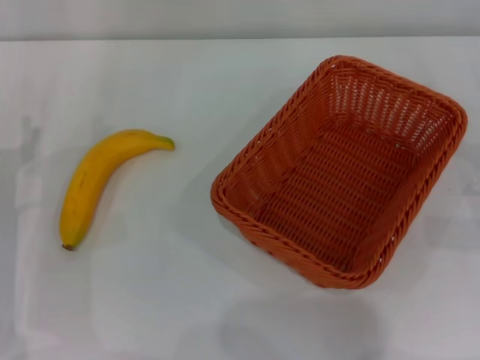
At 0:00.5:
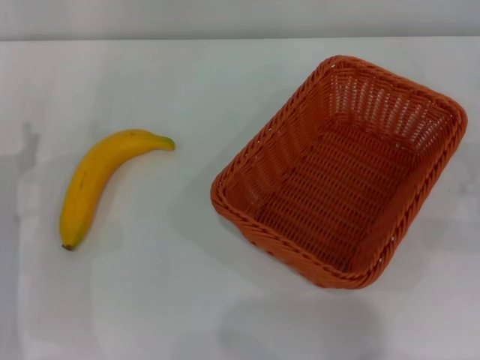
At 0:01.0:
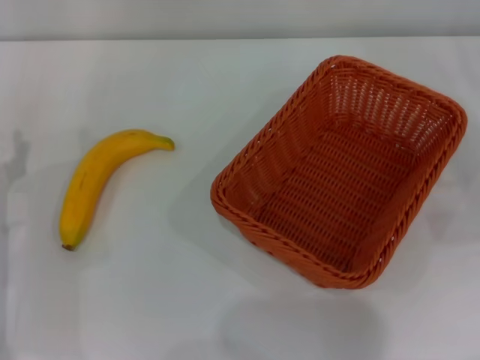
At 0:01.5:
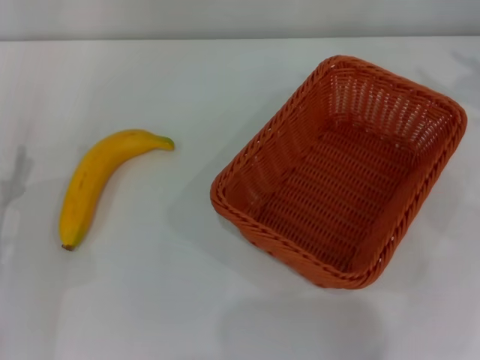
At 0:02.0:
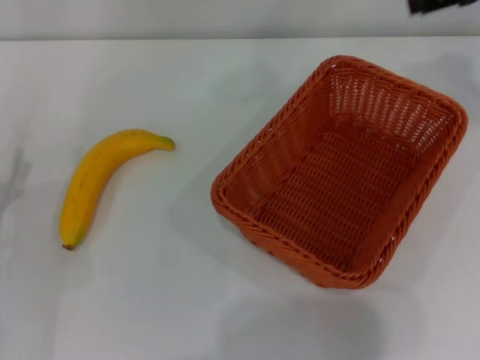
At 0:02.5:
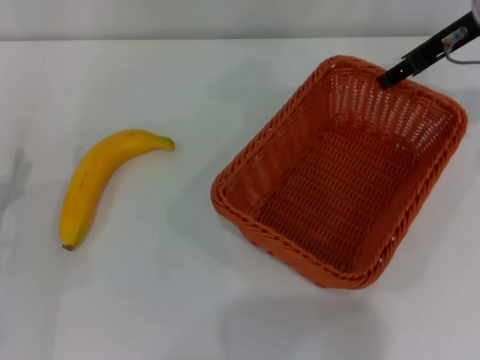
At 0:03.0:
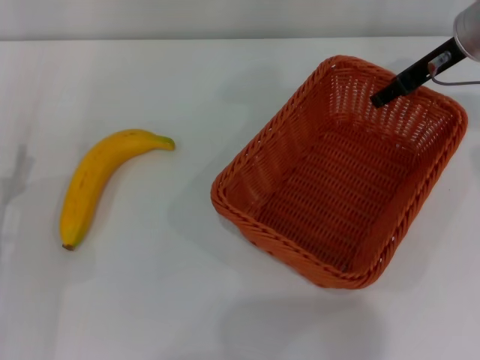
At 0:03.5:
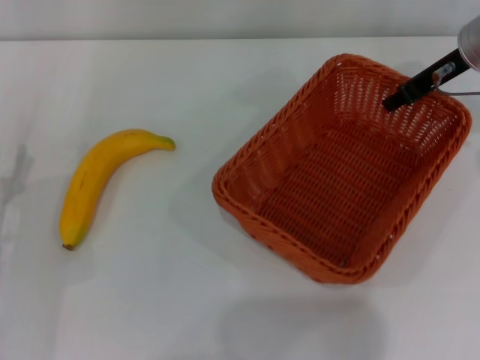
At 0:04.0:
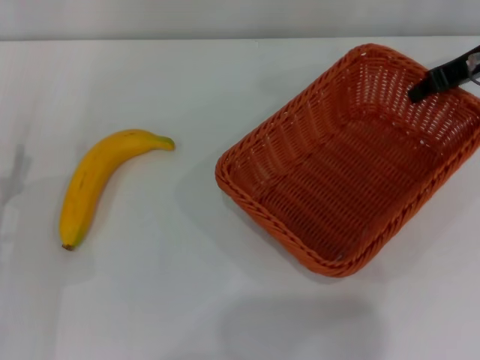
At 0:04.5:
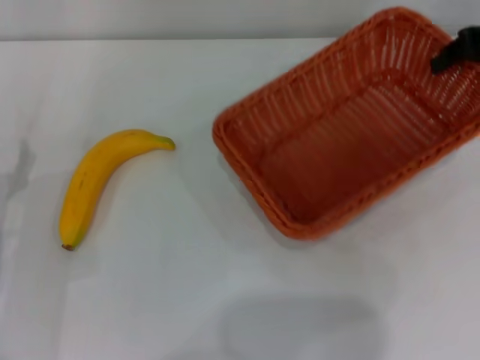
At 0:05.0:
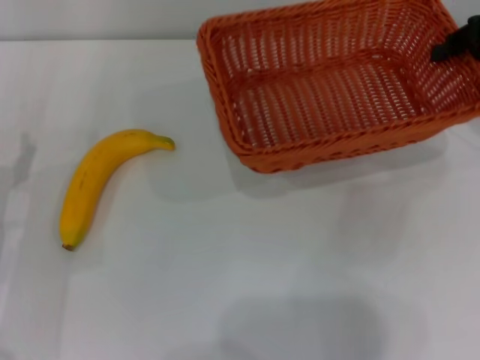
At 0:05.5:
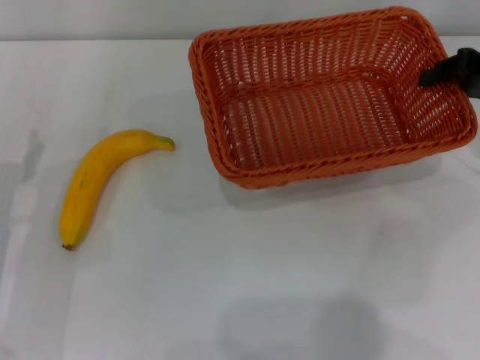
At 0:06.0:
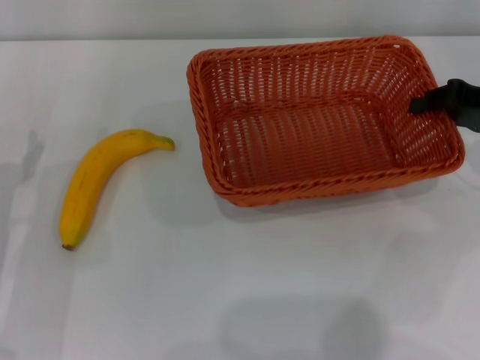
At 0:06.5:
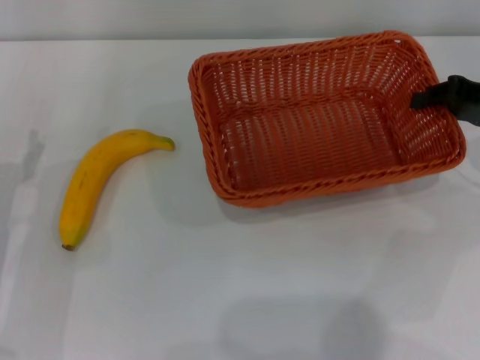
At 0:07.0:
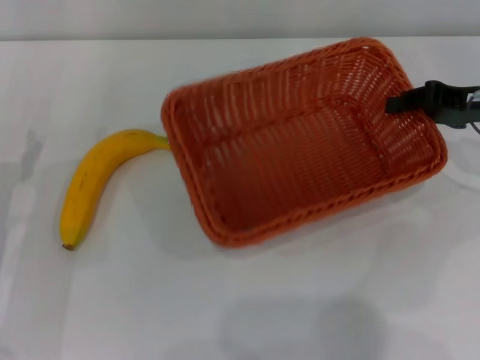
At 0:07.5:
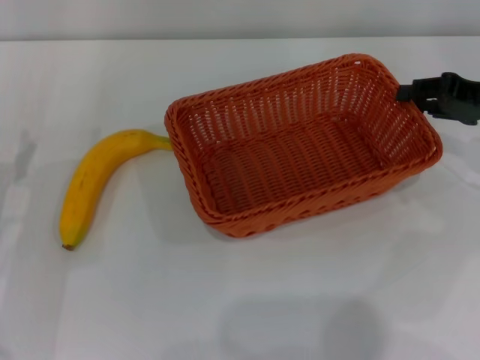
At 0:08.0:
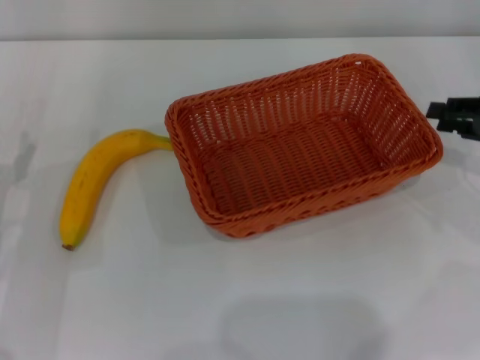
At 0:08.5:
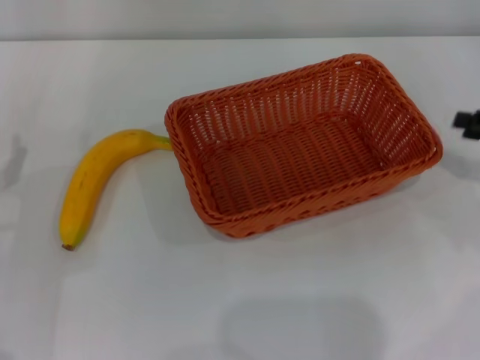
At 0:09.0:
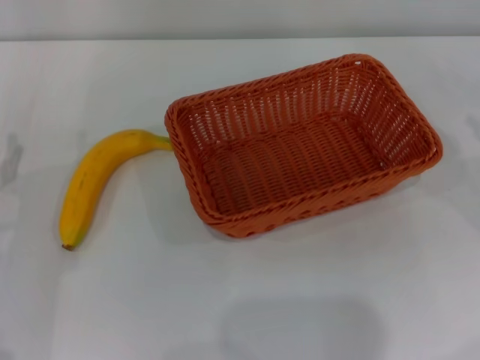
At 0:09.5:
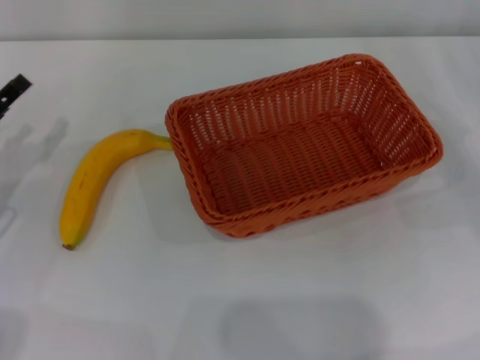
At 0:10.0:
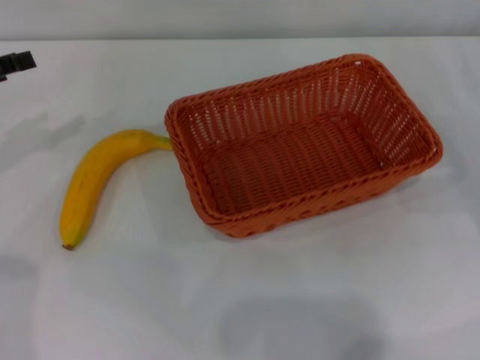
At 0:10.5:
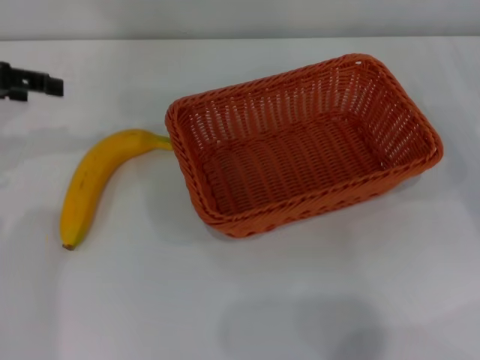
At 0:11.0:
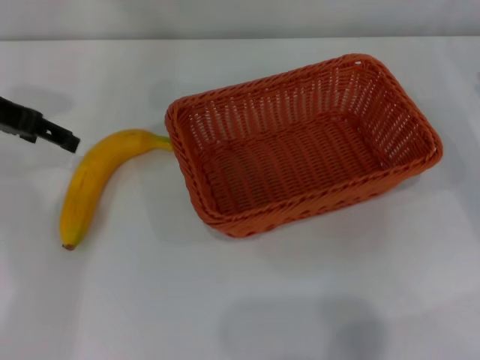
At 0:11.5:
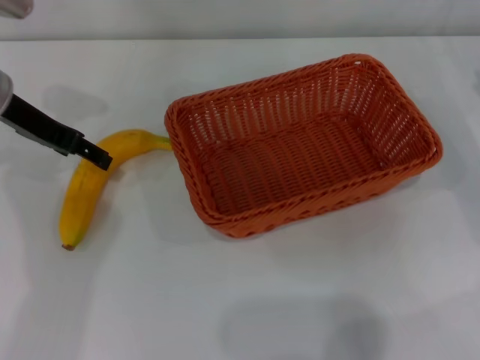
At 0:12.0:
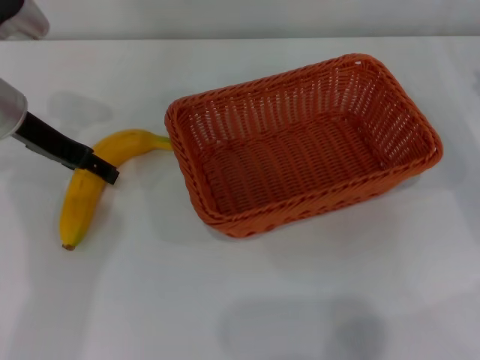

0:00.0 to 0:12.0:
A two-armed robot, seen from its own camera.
Step, 0:00.0 to 0:04.0: Pick up the light basket with the right gripper.
Step, 0:04.5 to 0:07.5: Place the light basket in the center of view with the right gripper.
0:00.0 to 0:02.0: The right gripper heads upward, forward and to the left, covering about 30 cm.
0:02.0 to 0:04.0: The right gripper shifts about 10 cm downward, and closes up.
0:04.0 to 0:06.0: The right gripper goes some 10 cm backward and downward.
0:06.0 to 0:08.0: The grippers move only a little.
0:08.0 to 0:10.0: The right gripper moves downward, approximately 5 cm, while the left gripper moves upward, forward and to the left, about 15 cm.
0:10.0 to 0:12.0: The left gripper moves to the right and forward, about 15 cm.

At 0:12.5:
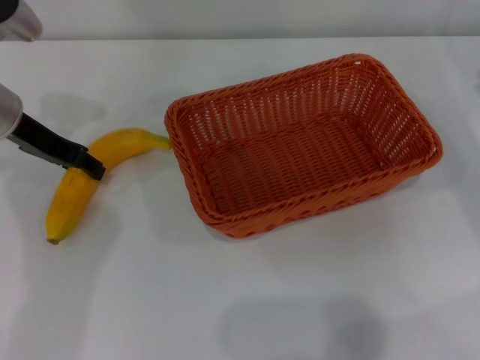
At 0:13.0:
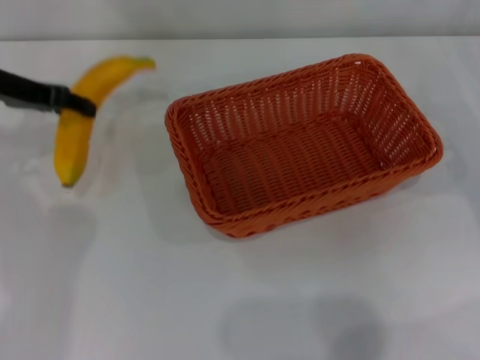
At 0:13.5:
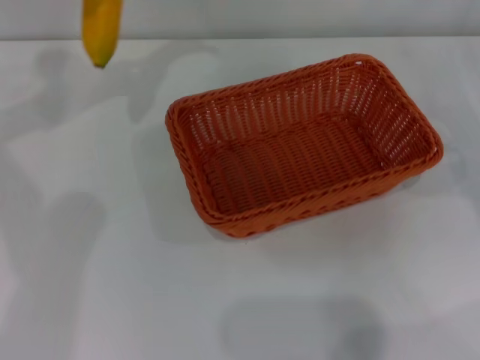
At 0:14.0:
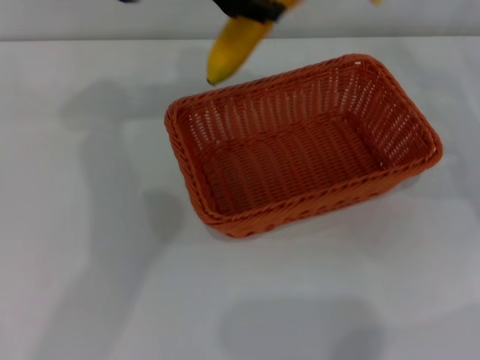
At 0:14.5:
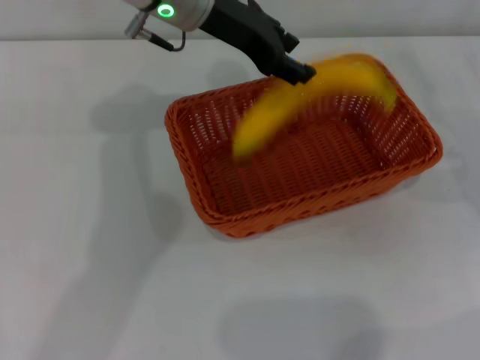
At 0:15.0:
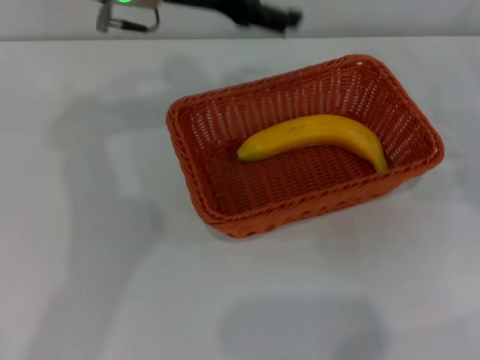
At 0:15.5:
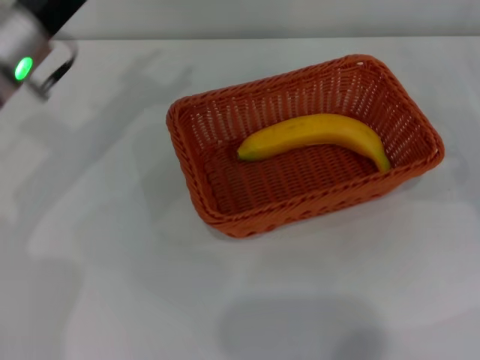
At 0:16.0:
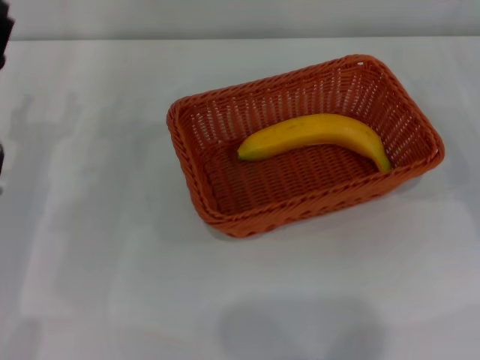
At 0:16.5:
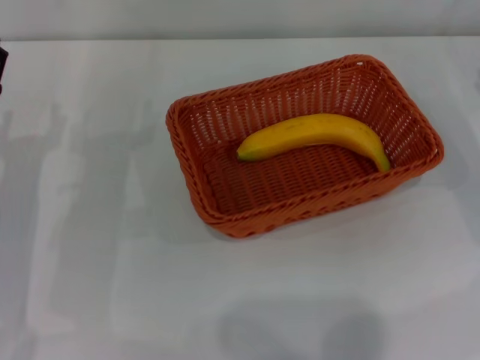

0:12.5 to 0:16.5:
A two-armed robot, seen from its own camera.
Step, 0:13.0 to 0:14.5: Place the banana into the light basket with the left gripper.
0:12.5 to 0:14.5: The left gripper shifts approximately 20 cm to the right and upward.
0:14.5 to 0:16.5: The left gripper is displaced to the left, downward and backward by about 30 cm, and opens up.

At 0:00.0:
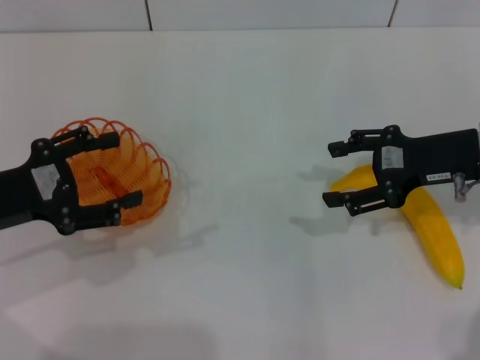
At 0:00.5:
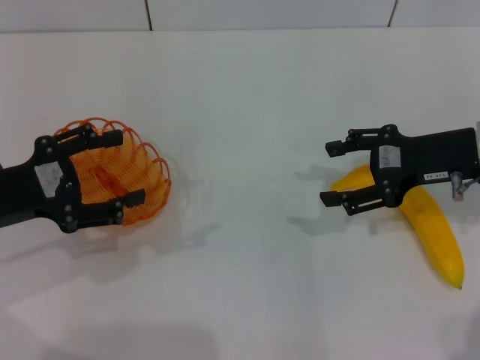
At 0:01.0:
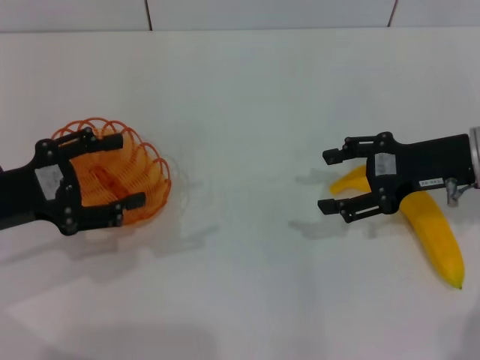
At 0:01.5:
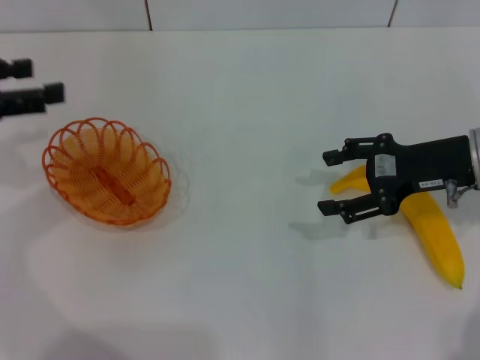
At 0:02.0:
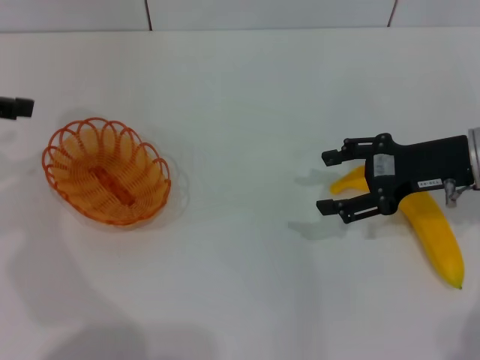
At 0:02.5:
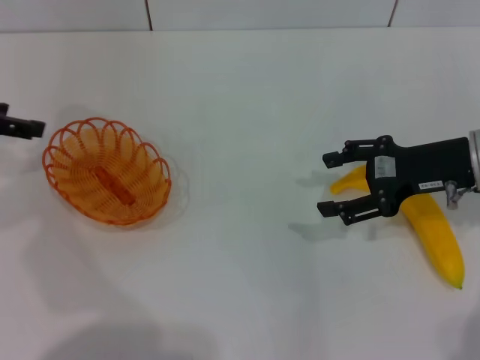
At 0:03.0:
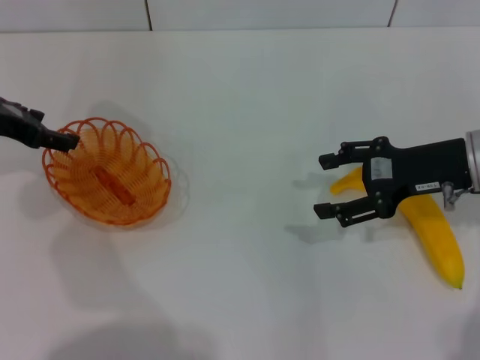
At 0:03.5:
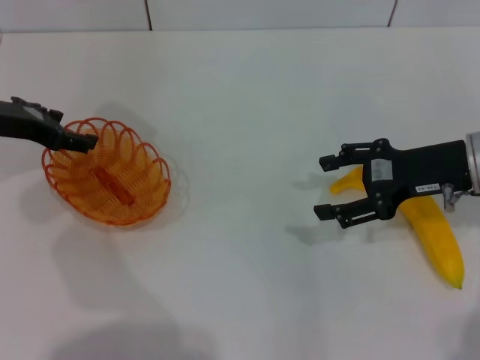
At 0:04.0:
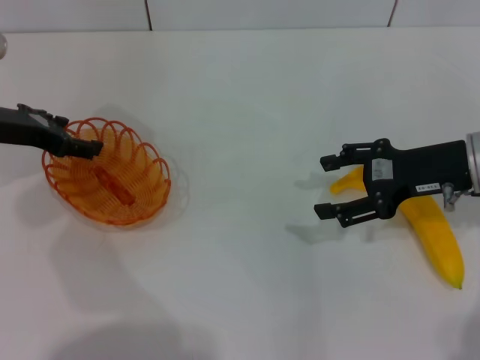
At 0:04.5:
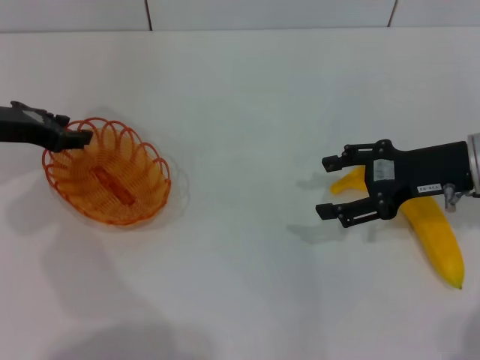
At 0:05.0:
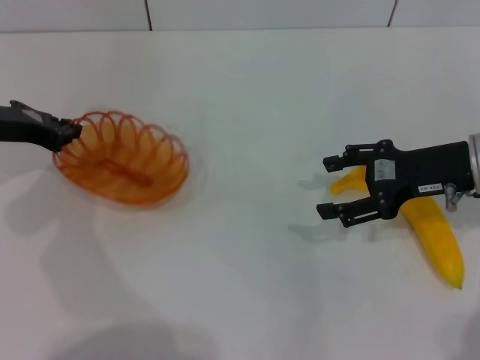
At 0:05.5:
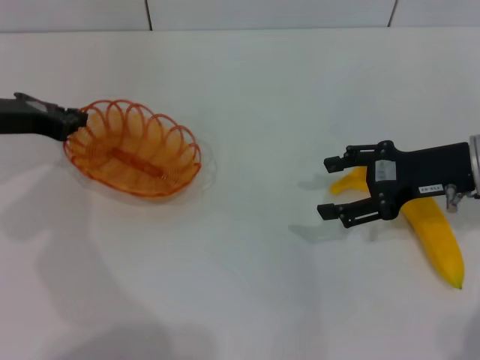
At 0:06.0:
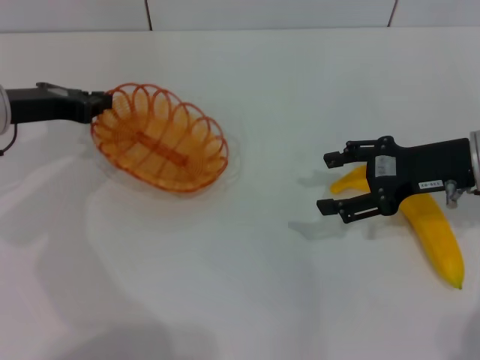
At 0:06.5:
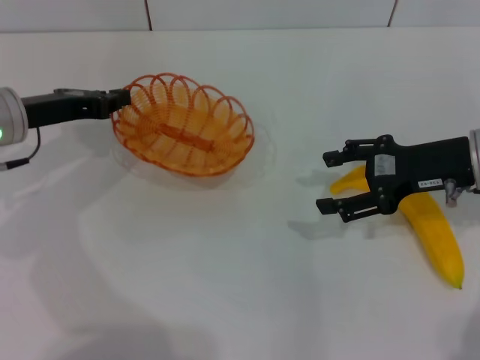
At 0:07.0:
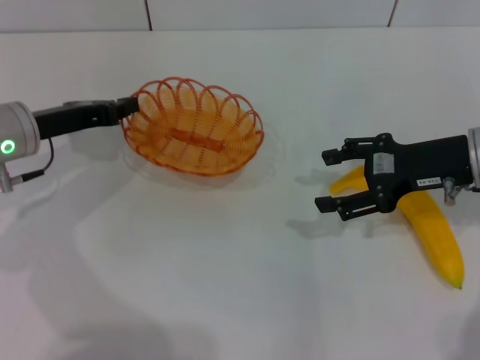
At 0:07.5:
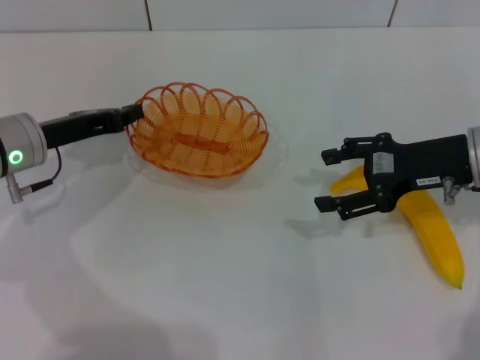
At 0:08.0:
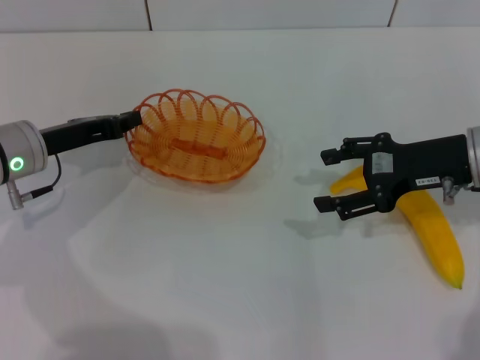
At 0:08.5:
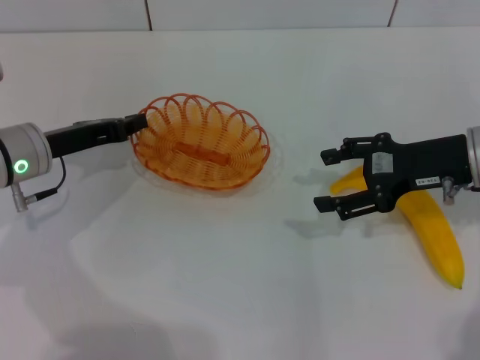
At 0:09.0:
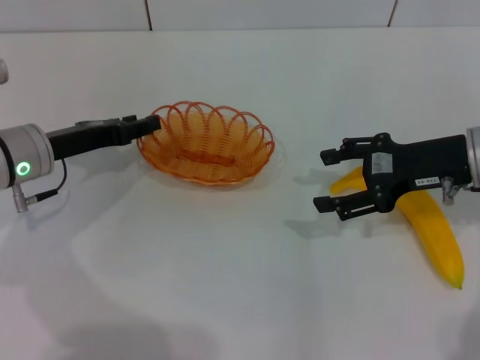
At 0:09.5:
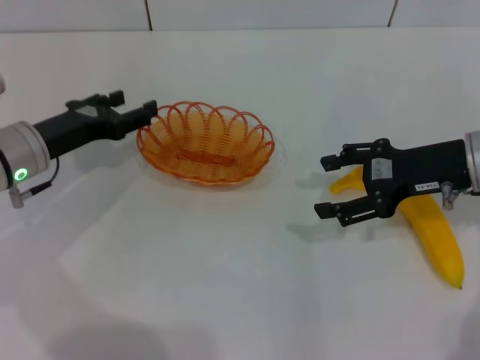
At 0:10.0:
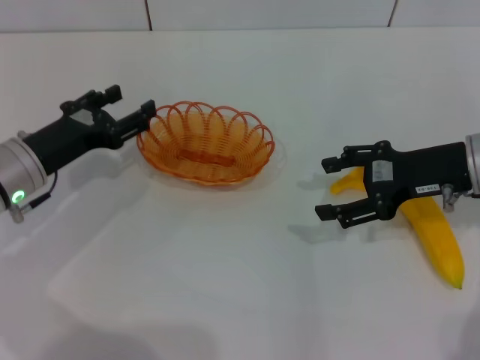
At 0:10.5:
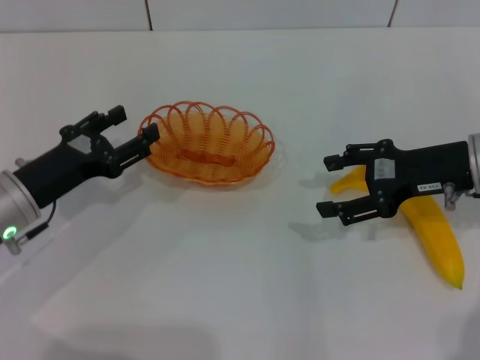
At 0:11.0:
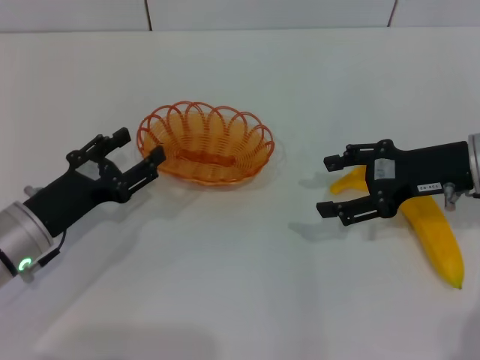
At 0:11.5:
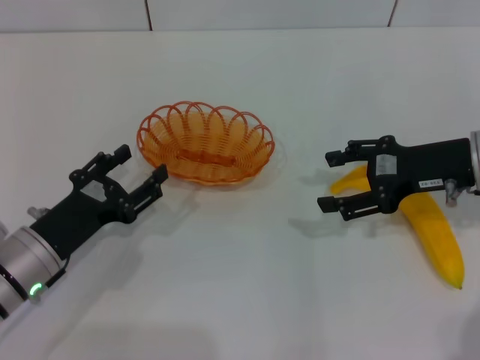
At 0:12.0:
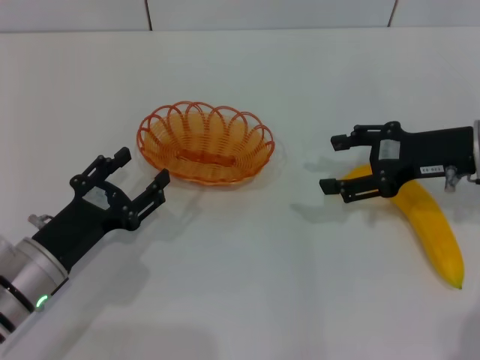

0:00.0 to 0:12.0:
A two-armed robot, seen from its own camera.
Step, 0:00.0 to 0:06.0: Pick up the basket with the left gripper.
Step, 0:06.5 to 0:09.5: Place the basket in the center of view with the left gripper.
0:00.0 to 0:02.0: The left gripper travels upward, forward and to the left by roughly 15 cm.
0:02.0 to 0:04.0: The left gripper shifts some 10 cm downward and to the right.
0:04.0 to 0:06.0: The left gripper closes up.
0:06.0 to 0:08.0: The left gripper goes about 5 cm downward.
0:08.0 to 0:10.0: The left gripper opens.
0:10.0 to 0:12.0: The left gripper heads backward, covering some 10 cm.
